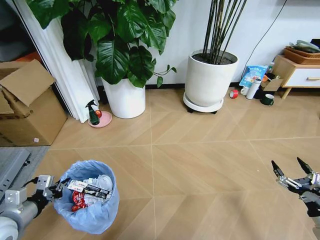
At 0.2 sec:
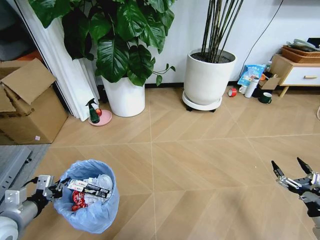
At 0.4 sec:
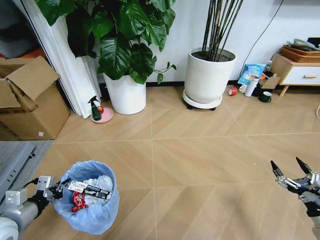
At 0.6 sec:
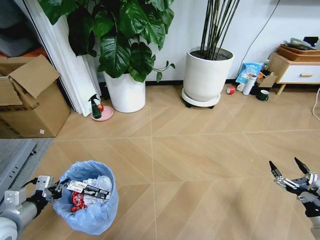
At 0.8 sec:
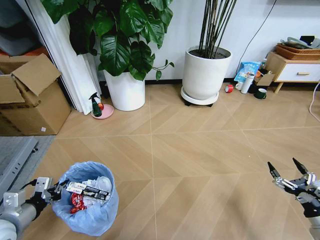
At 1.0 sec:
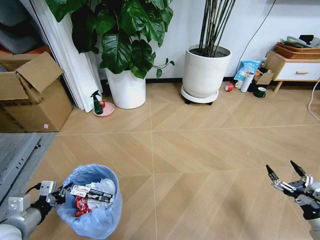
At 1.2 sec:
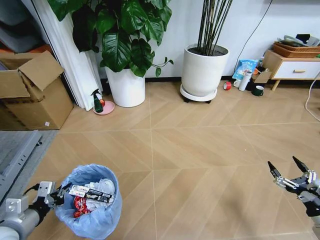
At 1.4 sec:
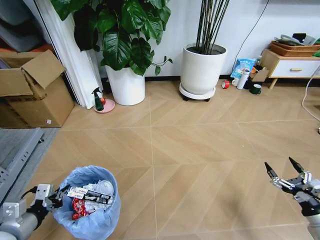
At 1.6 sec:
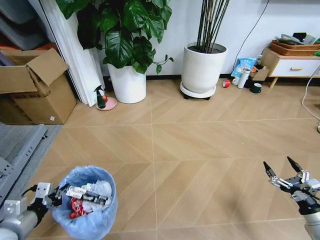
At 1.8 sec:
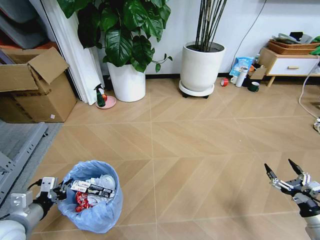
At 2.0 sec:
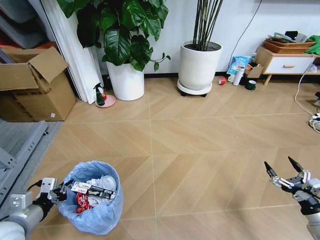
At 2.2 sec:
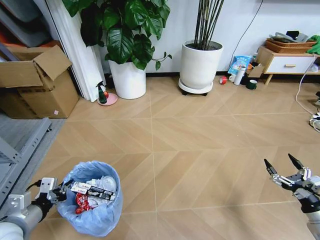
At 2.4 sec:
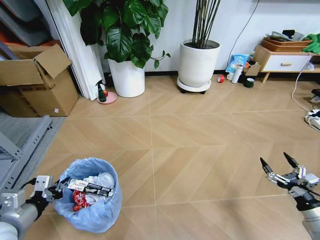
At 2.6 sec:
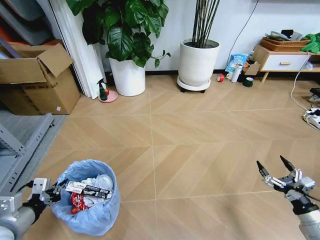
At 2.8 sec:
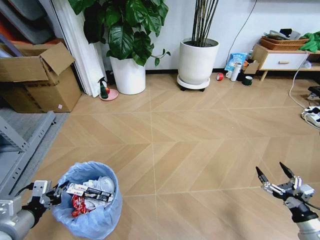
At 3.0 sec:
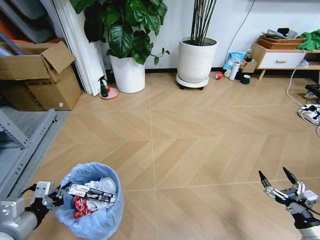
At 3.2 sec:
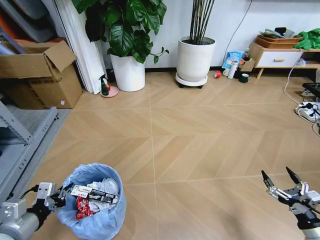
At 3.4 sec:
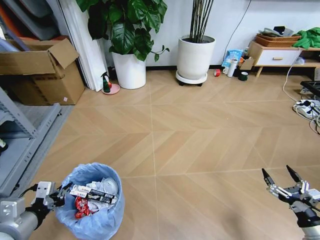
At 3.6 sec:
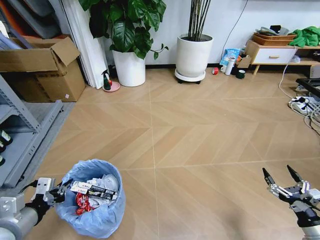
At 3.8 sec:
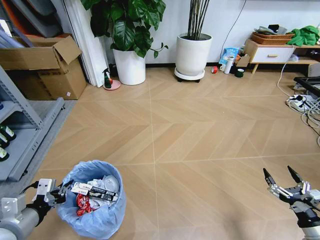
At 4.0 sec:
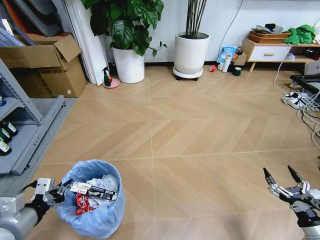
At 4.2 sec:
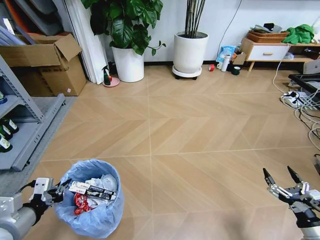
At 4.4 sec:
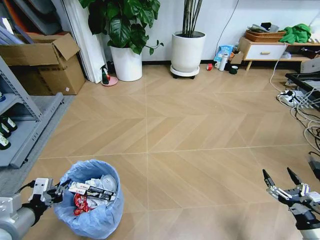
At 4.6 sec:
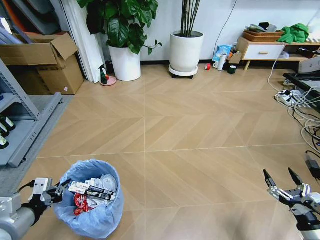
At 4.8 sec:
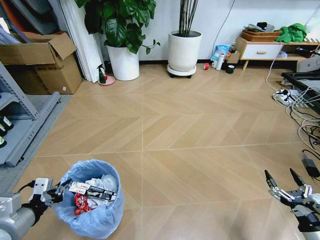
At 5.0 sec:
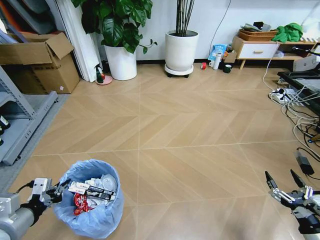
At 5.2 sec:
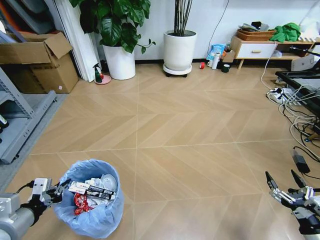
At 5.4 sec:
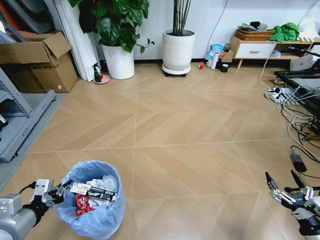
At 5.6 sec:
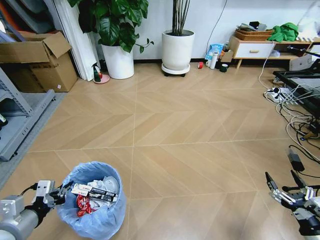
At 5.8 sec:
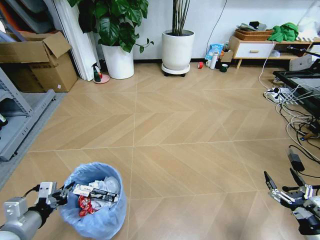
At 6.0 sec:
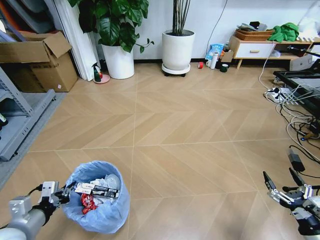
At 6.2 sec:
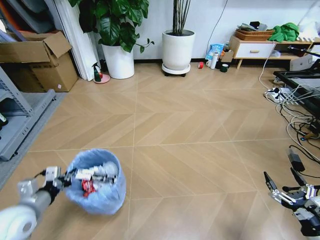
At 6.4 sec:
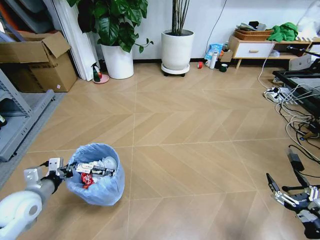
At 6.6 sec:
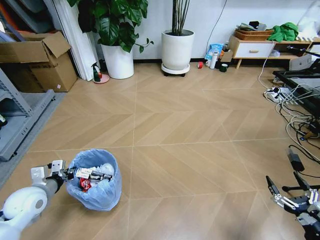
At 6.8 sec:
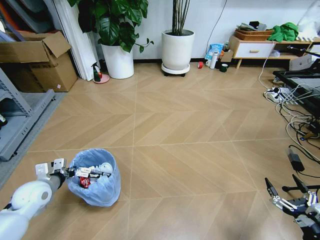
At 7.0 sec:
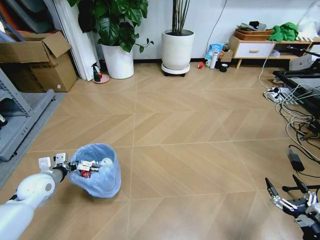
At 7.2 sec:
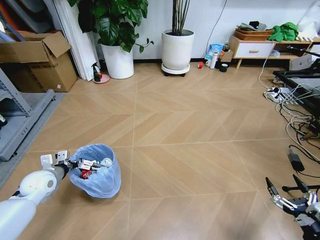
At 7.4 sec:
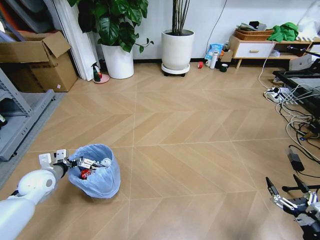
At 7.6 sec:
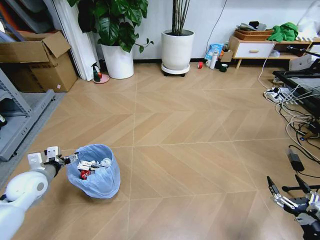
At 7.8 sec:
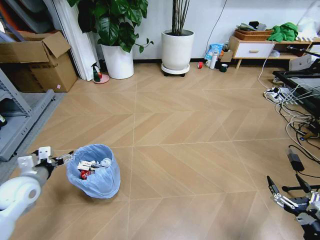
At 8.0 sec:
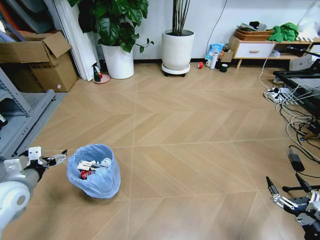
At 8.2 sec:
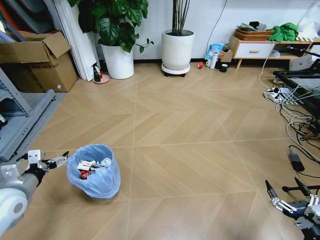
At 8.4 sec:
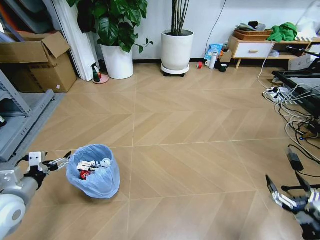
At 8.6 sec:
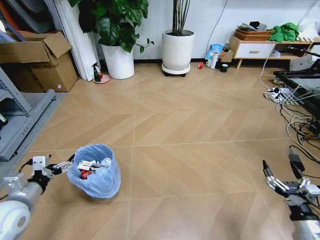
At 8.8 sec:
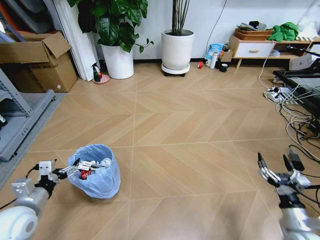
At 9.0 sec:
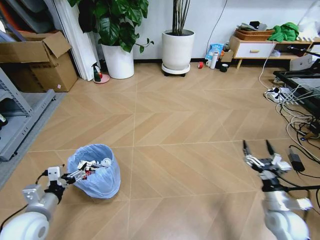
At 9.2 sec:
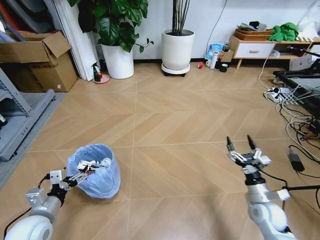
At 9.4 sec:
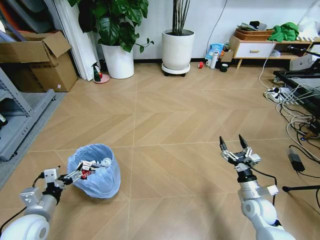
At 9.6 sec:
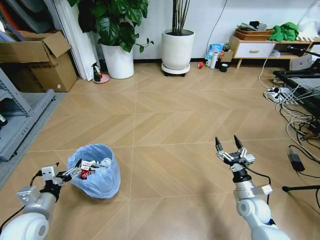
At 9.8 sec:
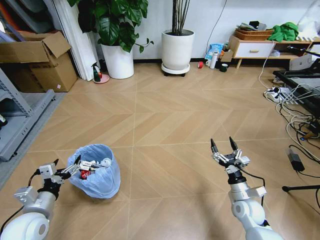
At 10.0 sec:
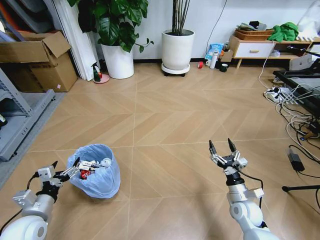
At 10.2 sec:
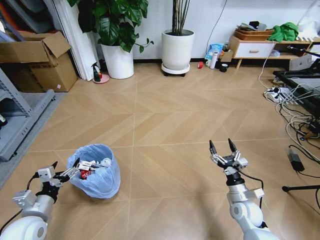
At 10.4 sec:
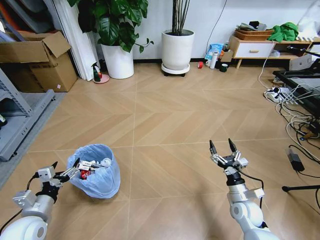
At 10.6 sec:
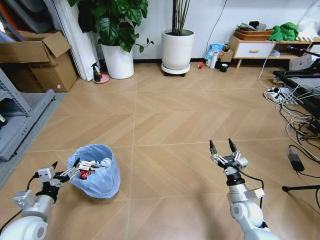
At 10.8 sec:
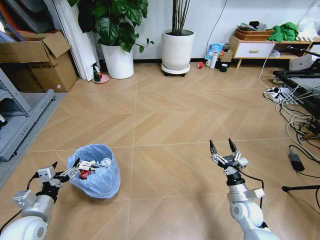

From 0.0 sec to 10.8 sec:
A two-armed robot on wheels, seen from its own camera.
Task of the whole recording: Pick up the trash bin and place the garbage on the floor into it.
From 1.6 sec to 3.0 sec: The right gripper moves roughly 5 cm.
From 4.6 sec to 6.2 sec: The left gripper travels downward by approximately 5 cm.
From 6.2 sec to 7.8 sec: The left gripper moves forward, about 10 cm, and opens.
From 7.8 sec to 9.2 sec: The left gripper travels backward, downward and to the right by approximately 10 cm; the right gripper moves forward and to the left, some 20 cm.
From 9.2 sec to 10.8 sec: The right gripper ends up about 5 cm from where it was.
